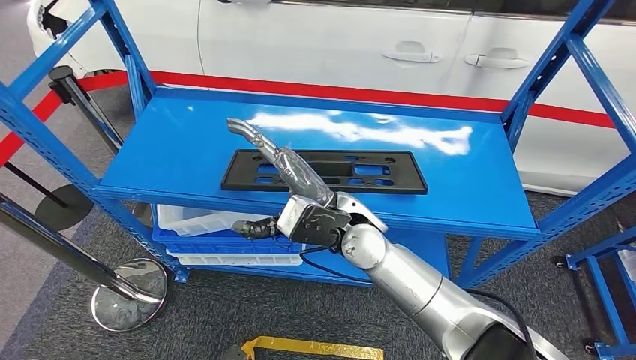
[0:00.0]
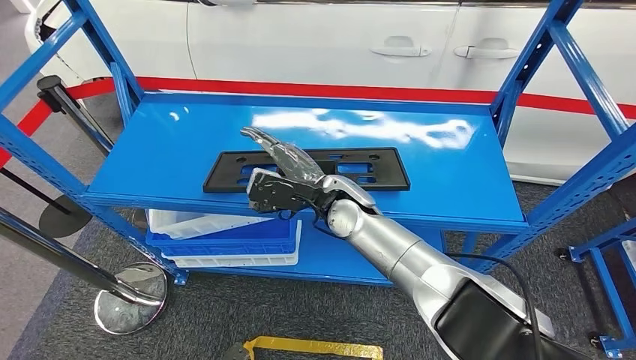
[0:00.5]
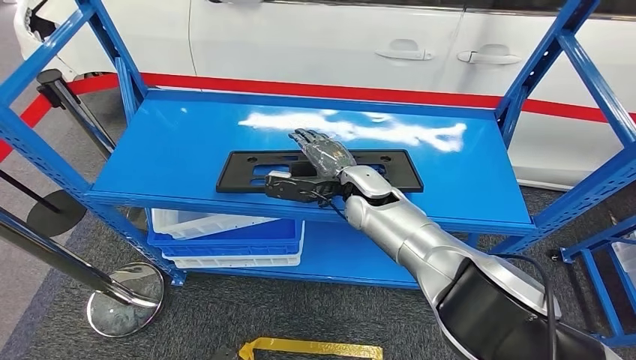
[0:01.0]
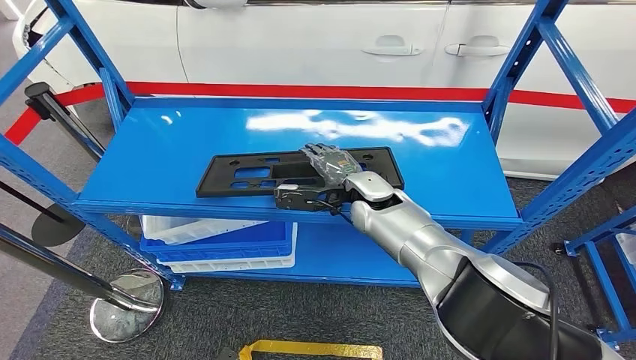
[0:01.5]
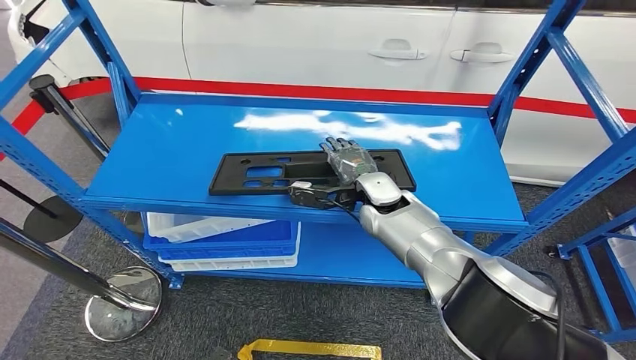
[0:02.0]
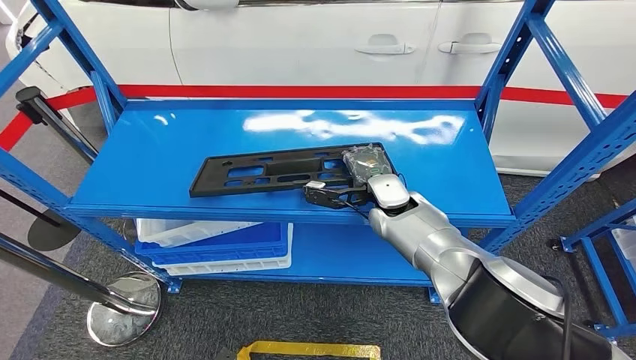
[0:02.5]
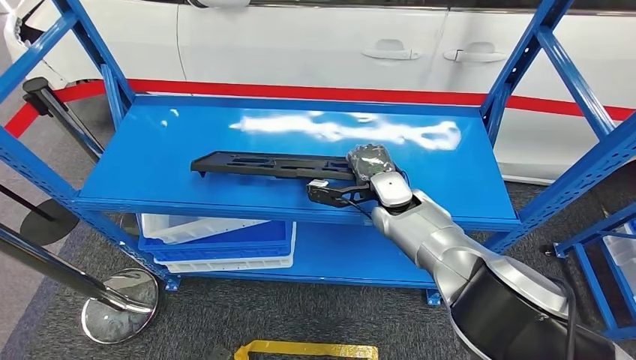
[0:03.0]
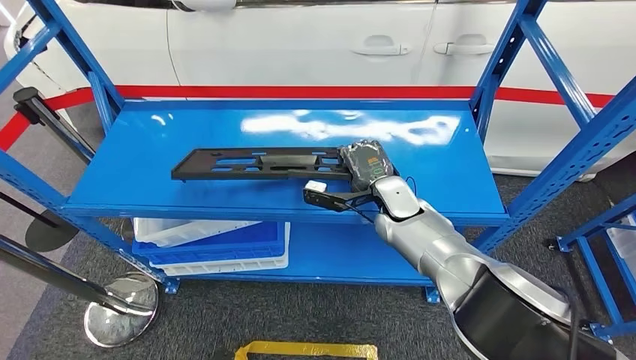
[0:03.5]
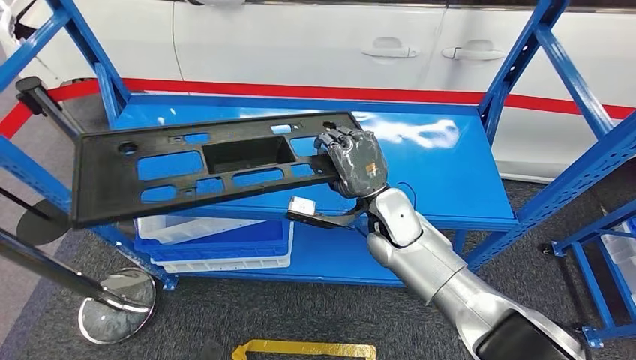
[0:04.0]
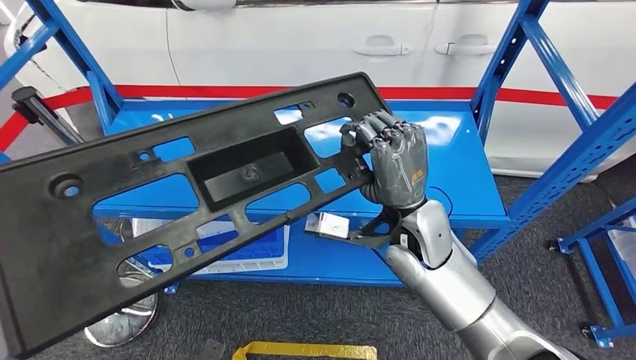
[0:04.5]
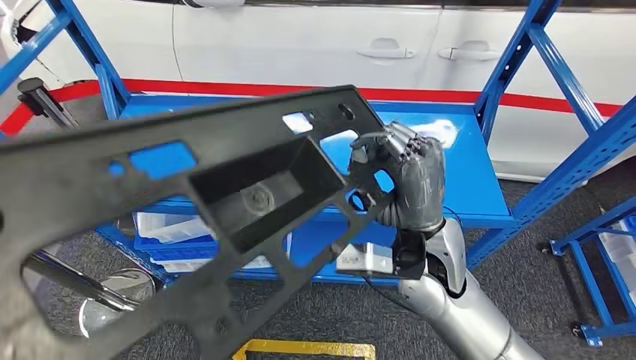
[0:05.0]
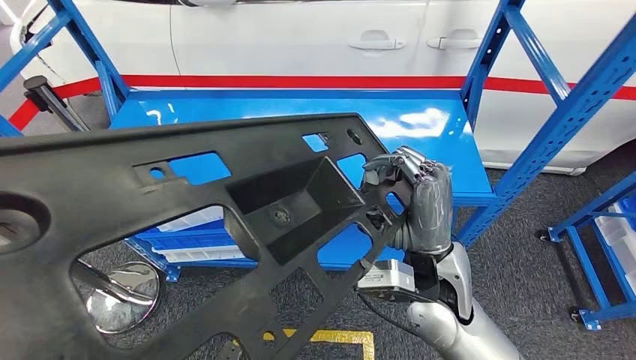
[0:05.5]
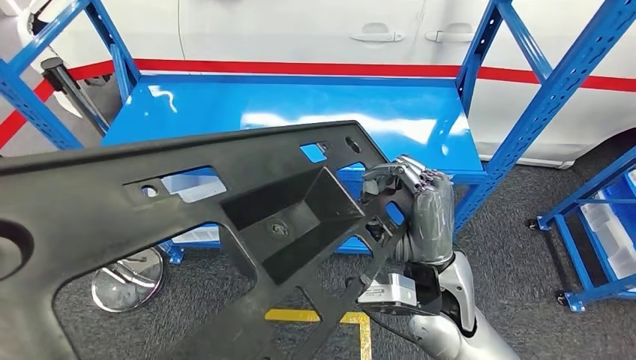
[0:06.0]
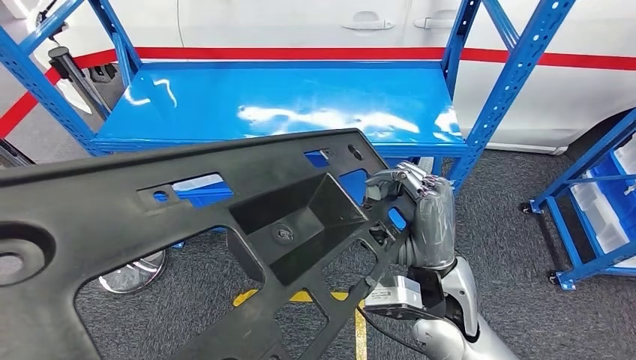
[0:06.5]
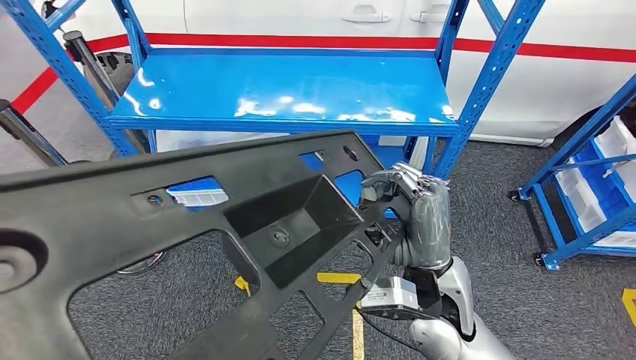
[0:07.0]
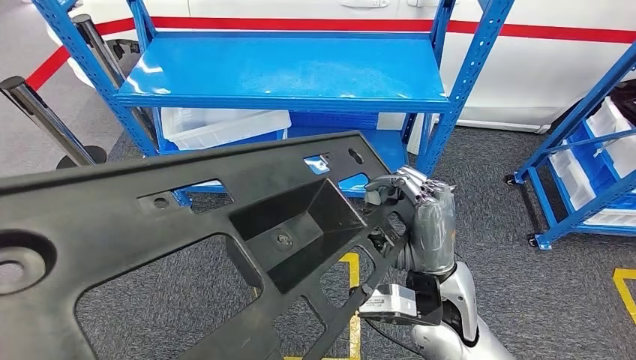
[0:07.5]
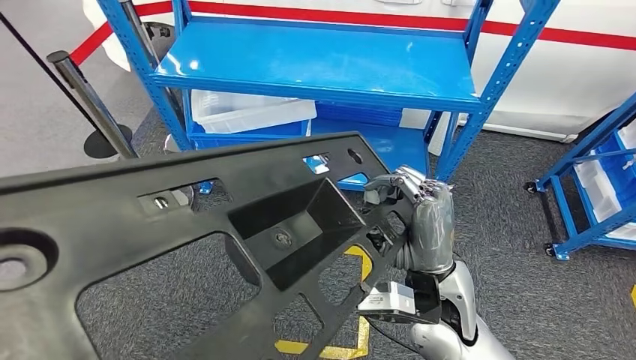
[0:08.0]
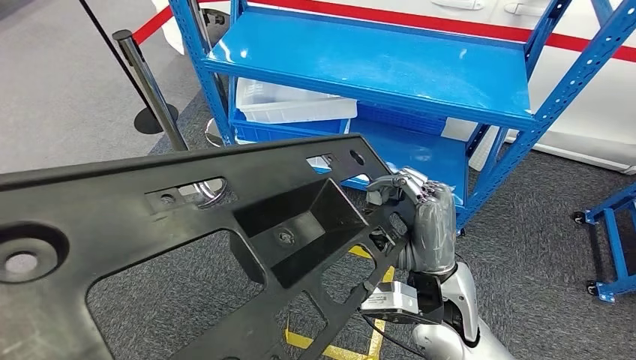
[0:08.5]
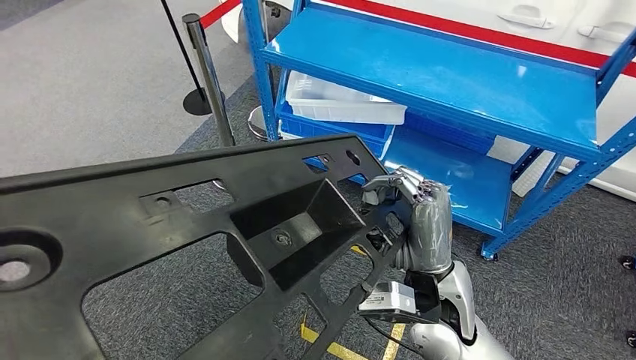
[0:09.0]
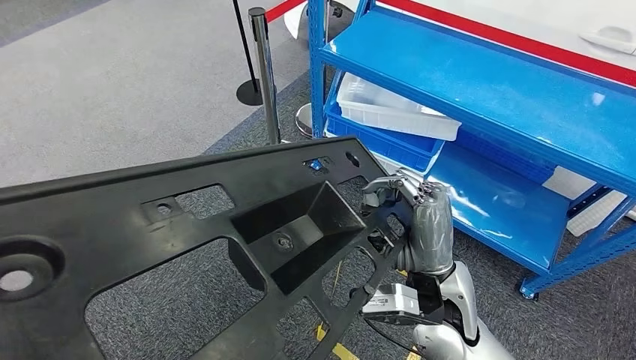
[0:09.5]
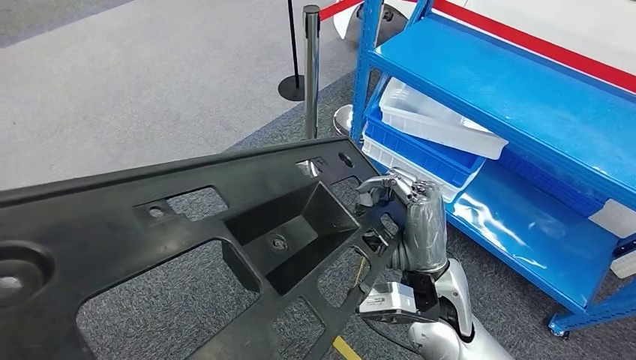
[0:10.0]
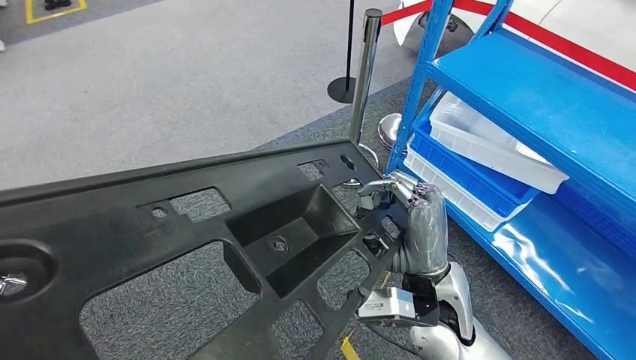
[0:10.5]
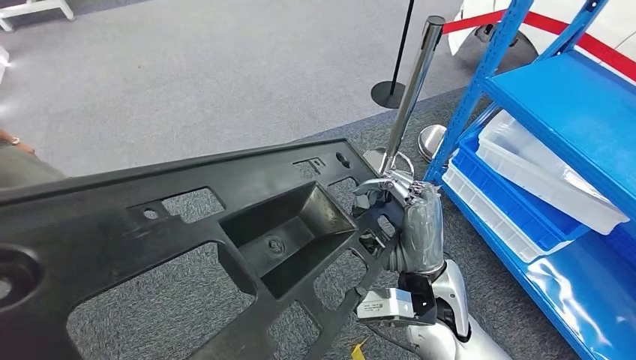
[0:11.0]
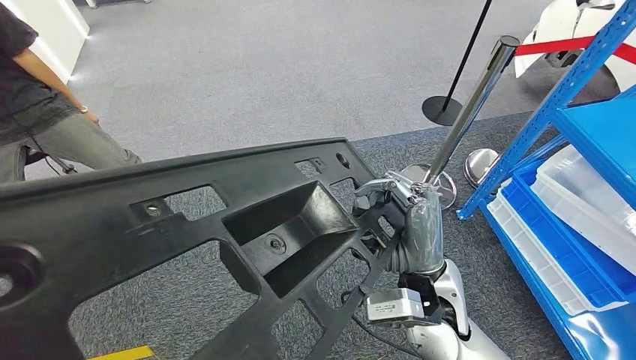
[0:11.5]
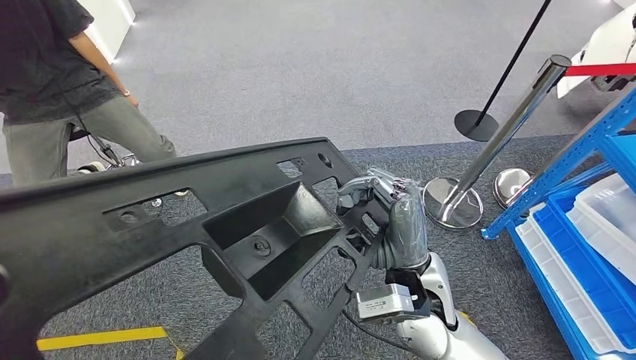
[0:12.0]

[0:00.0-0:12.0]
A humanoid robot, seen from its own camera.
Step, 0:00.0 to 0:03.0: Pick up the large material from the shelf.

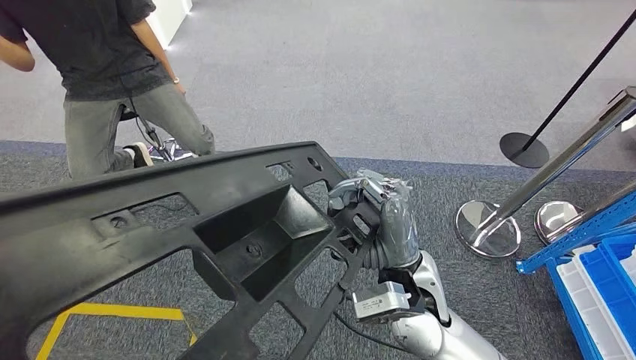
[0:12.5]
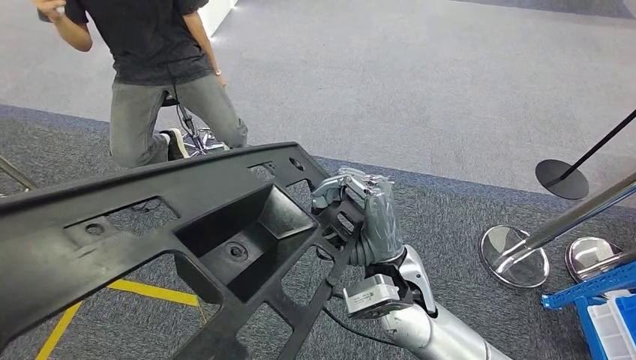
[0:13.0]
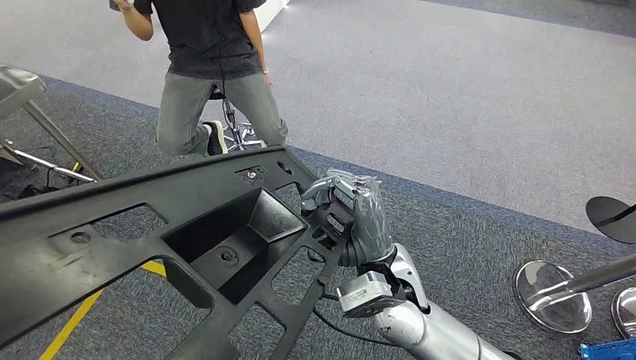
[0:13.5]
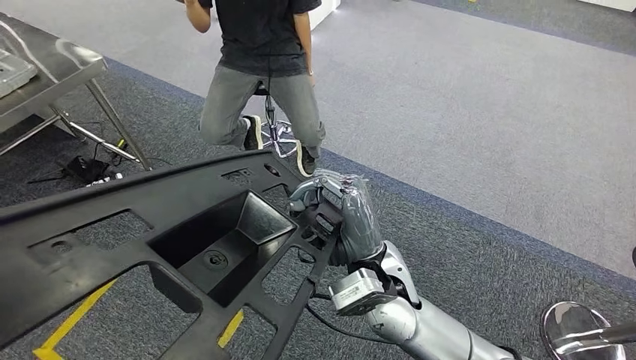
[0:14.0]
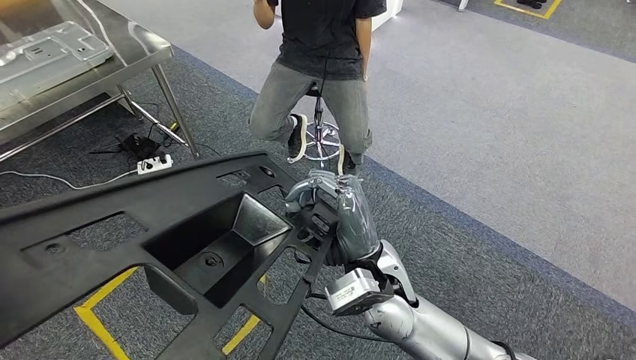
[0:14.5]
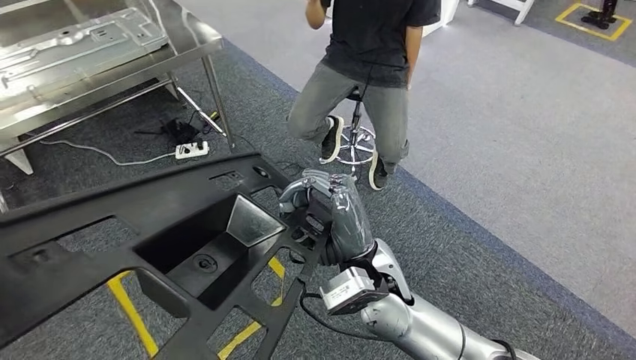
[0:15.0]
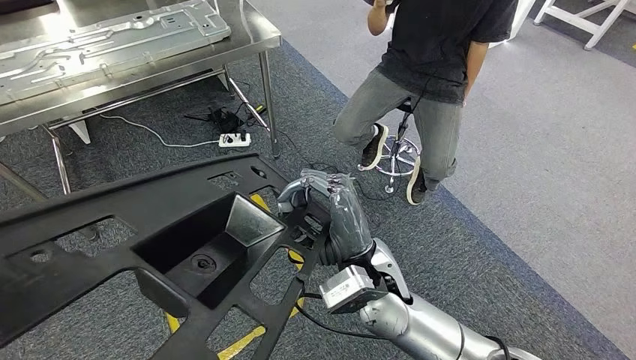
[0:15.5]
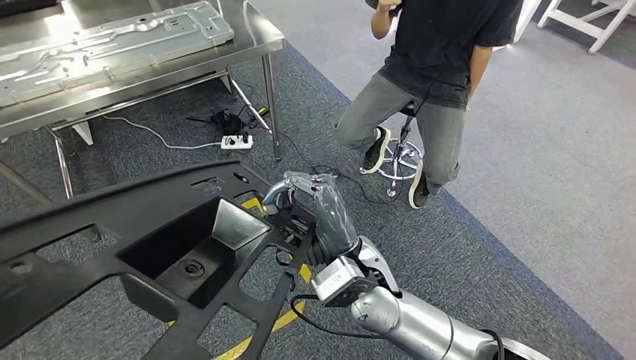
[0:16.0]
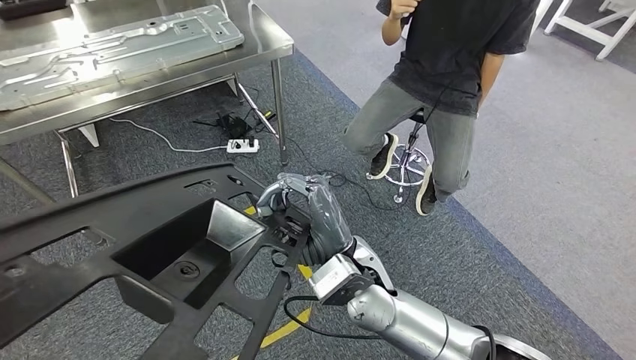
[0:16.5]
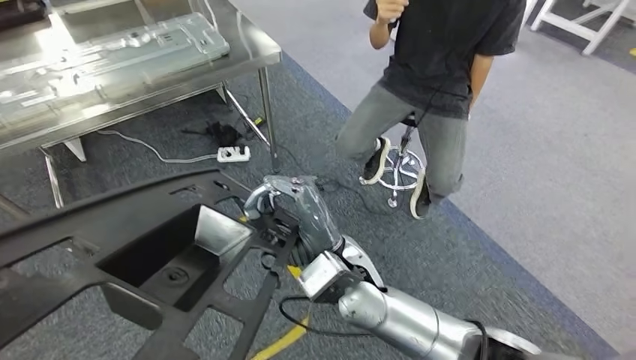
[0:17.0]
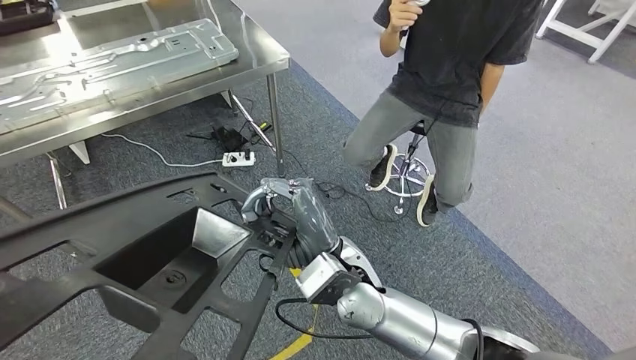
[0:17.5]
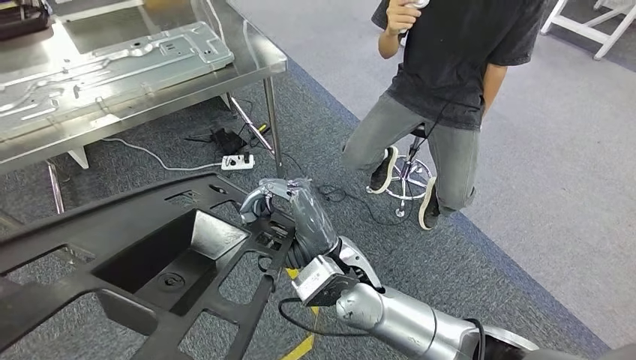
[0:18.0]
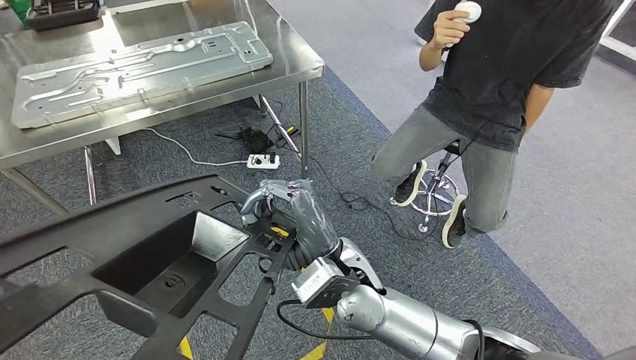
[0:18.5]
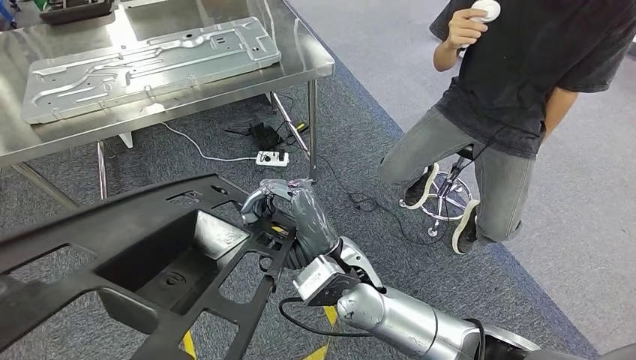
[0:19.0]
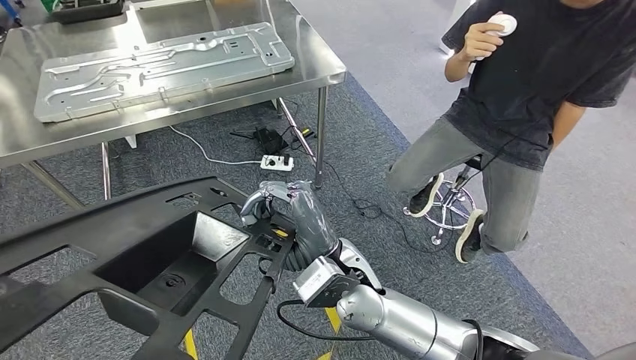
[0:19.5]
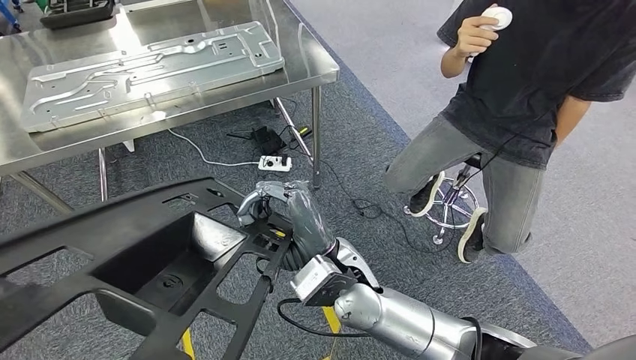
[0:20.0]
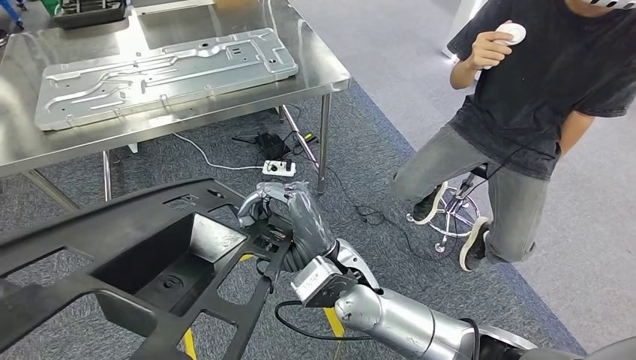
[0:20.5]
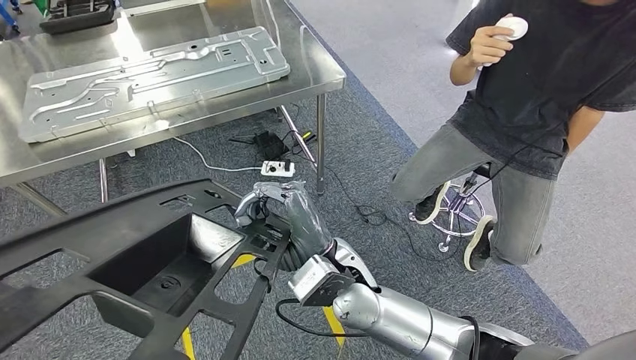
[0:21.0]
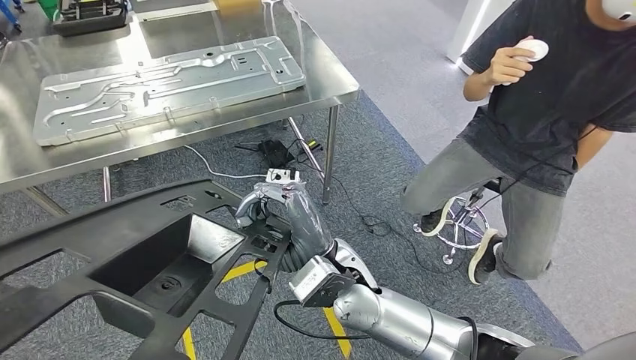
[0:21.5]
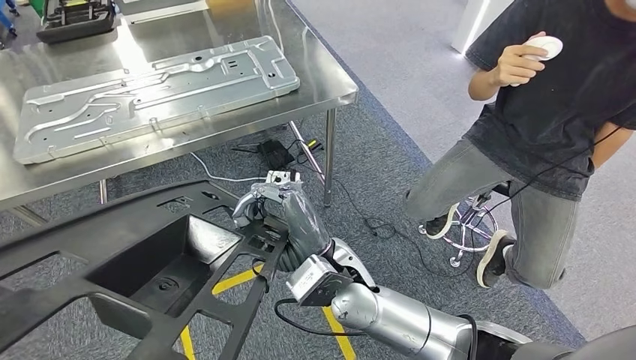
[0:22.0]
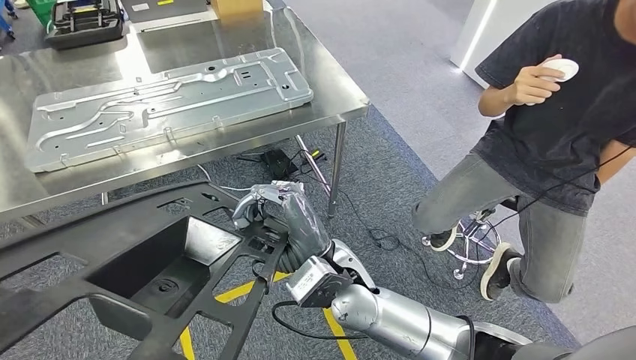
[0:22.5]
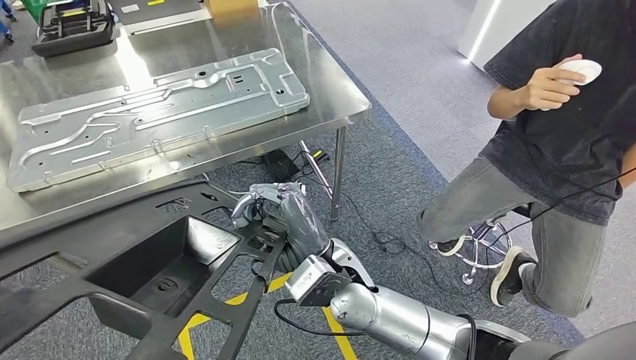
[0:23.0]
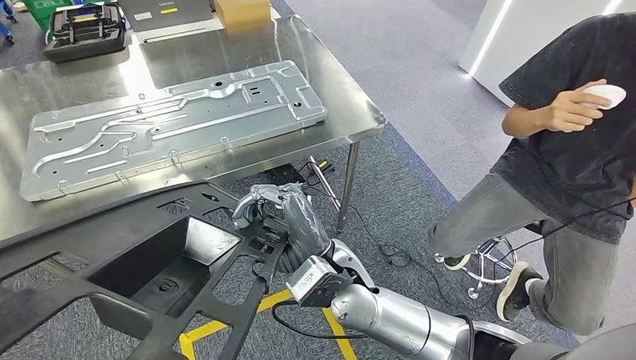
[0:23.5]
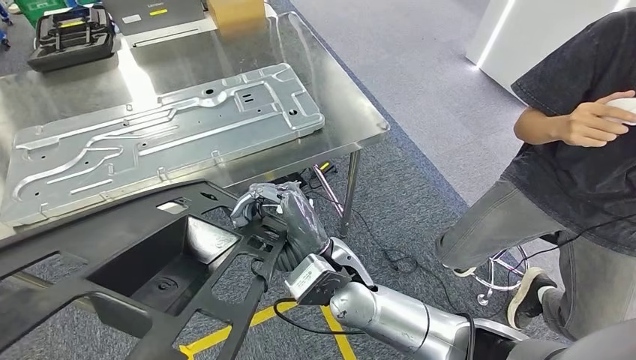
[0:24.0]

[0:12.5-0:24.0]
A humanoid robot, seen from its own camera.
Step, 0:12.5 to 0:16.0: Move the large material to the workbench.
